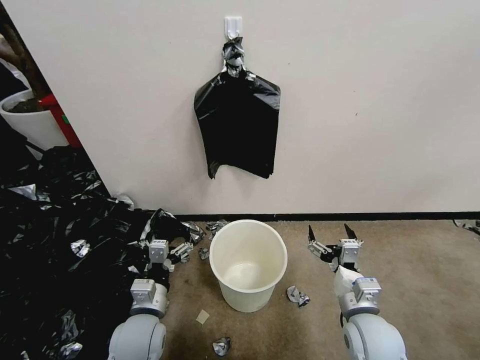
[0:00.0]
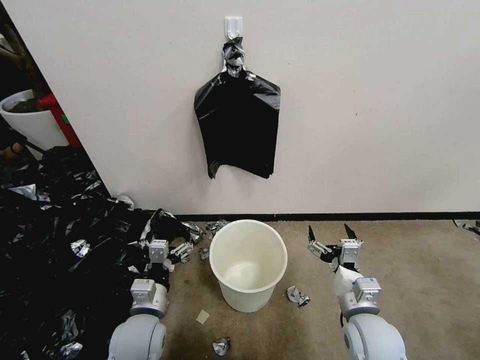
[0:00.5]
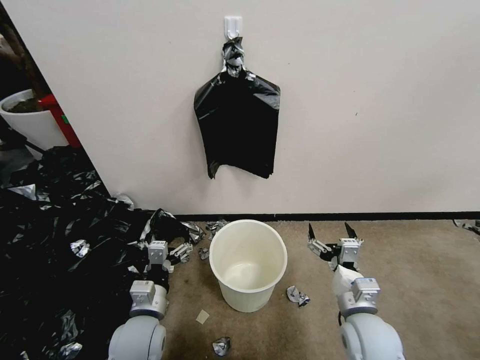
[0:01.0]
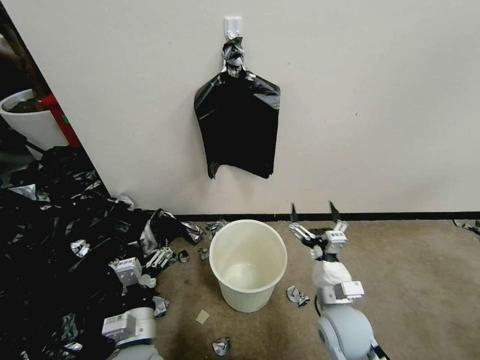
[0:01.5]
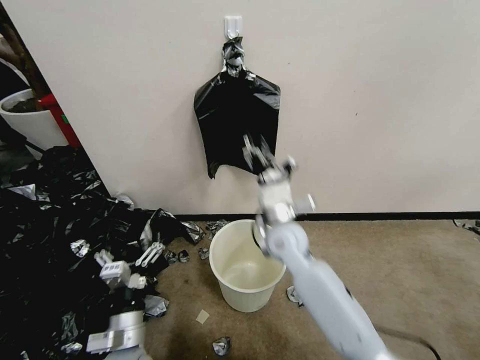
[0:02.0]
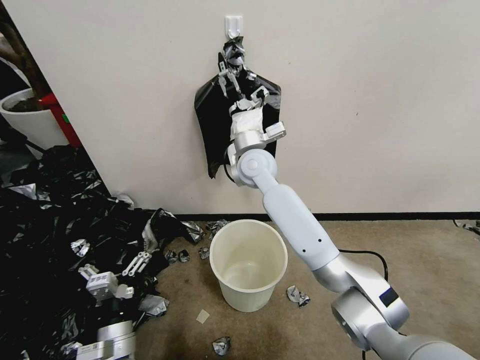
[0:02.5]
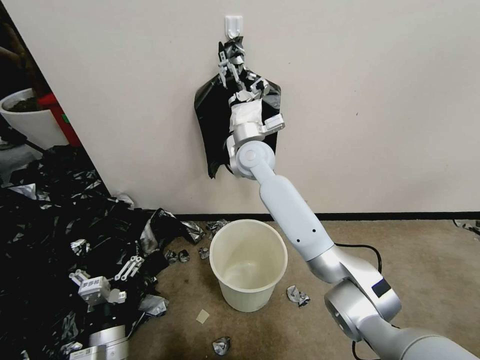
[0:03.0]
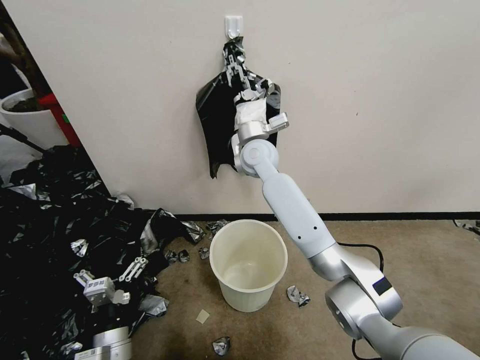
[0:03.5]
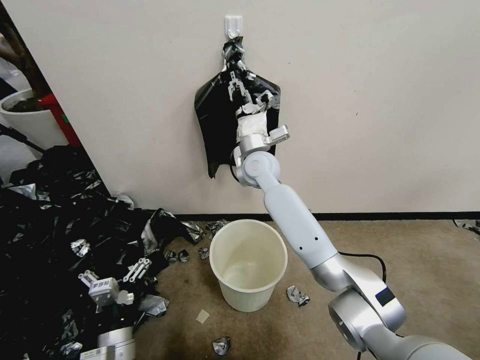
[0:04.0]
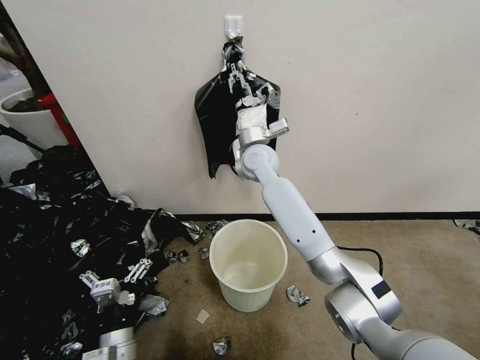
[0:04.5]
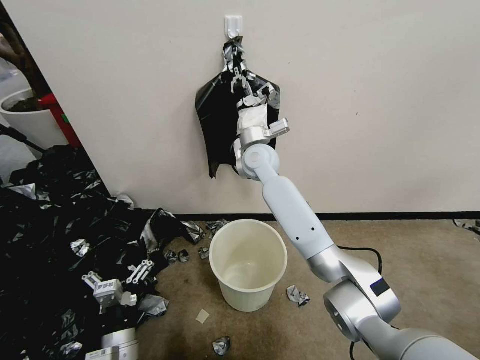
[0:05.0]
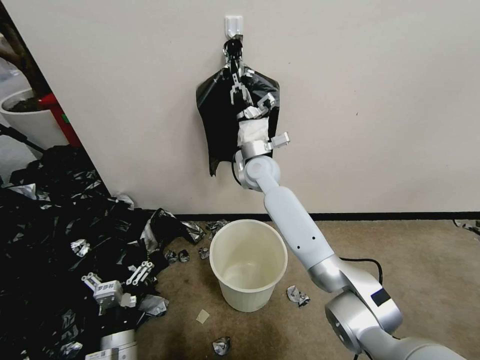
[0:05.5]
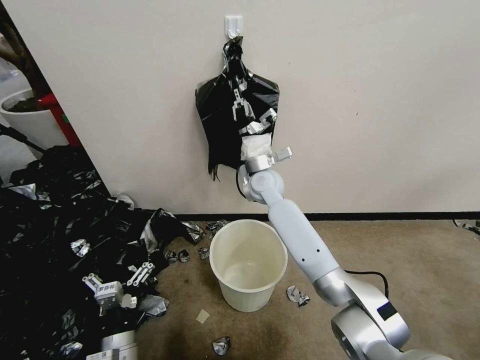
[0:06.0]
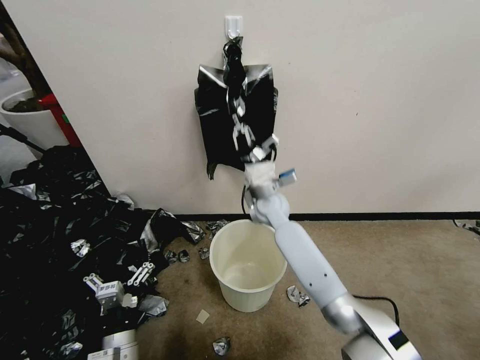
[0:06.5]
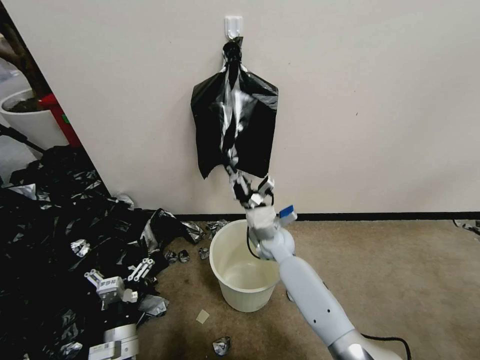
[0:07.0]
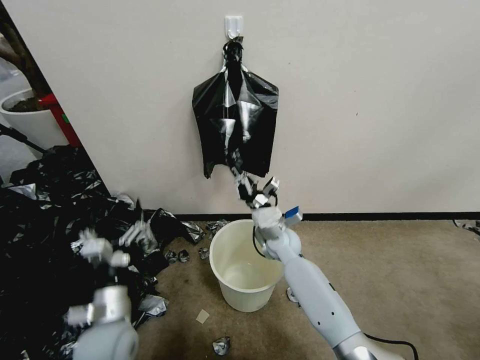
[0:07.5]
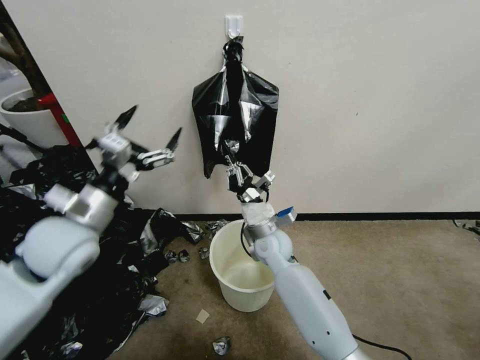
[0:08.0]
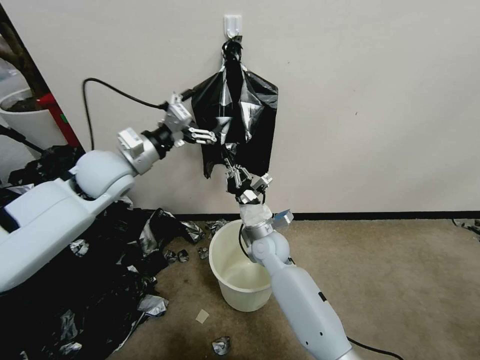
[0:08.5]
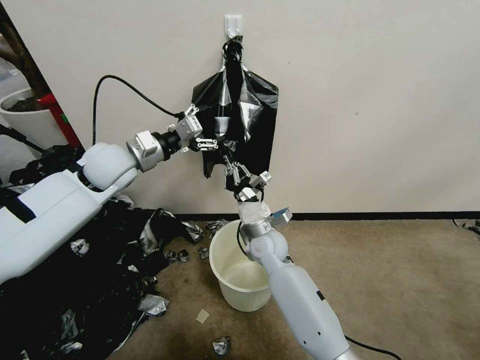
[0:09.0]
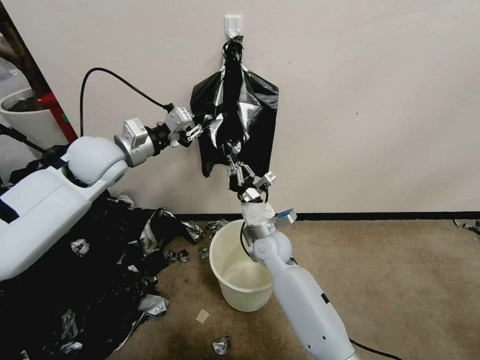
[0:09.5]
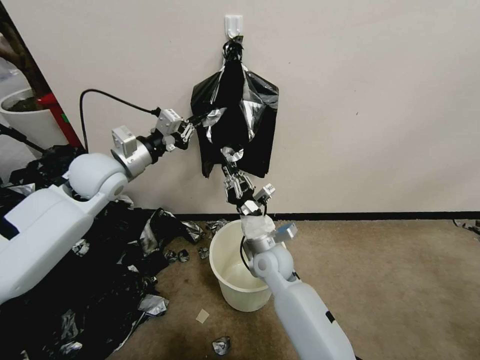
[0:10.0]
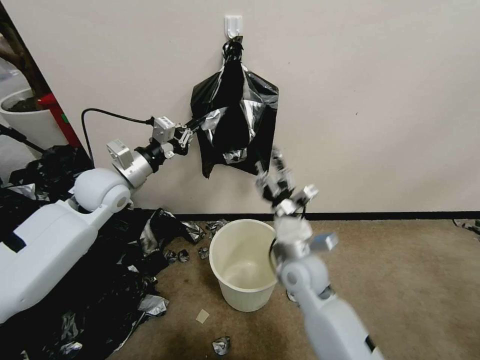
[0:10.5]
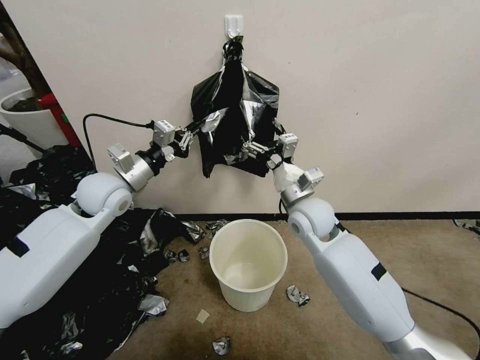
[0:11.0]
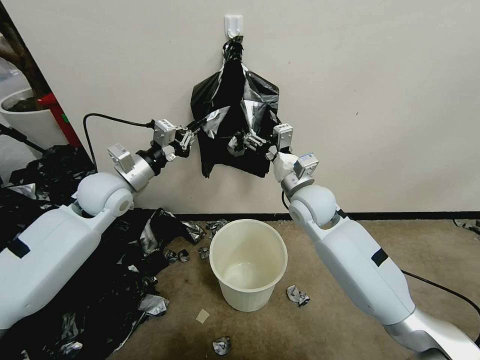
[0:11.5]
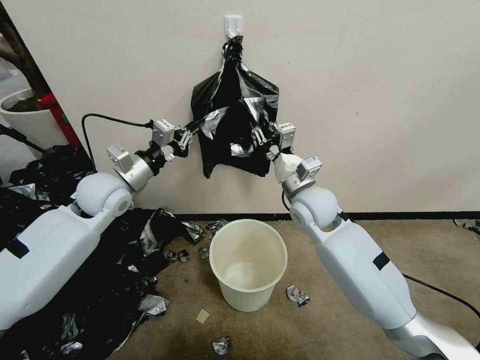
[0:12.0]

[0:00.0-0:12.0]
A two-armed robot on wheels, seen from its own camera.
Task of the whole recording: Place a trash bag onto the trash bin.
0:02.0 to 0:04.0: The right gripper travels forward and upward by approximately 15 cm, and closes up.
0:04.0 to 0:06.0: The right gripper shifts roughly 5 cm downward.
0:06.0 to 0:08.0: The left gripper shifts about 30 cm upward and forward. Meanwhile the right gripper shifts approximately 15 cm backward and downward.
0:08.0 to 0:10.0: The left gripper moves forward, about 15 cm, and closes.
0:10.0 to 0:12.0: The right gripper travels upward, to the right and forward by some 15 cm, and opens, then closes again.

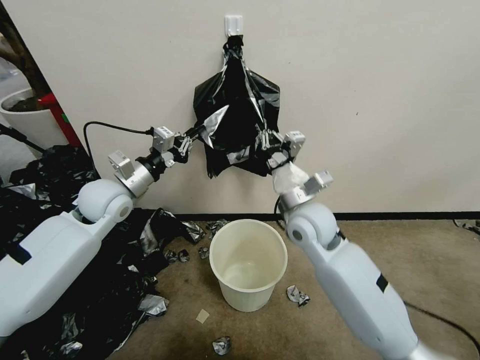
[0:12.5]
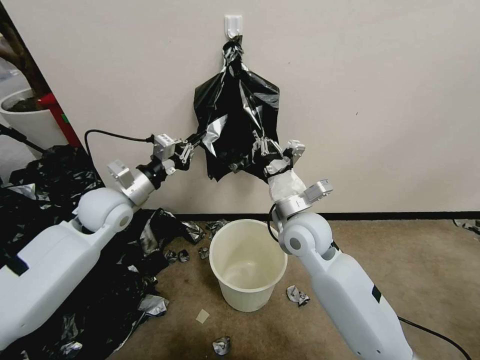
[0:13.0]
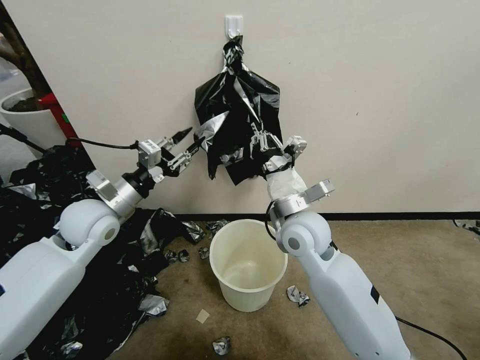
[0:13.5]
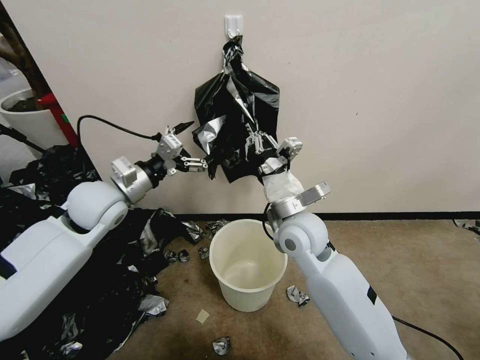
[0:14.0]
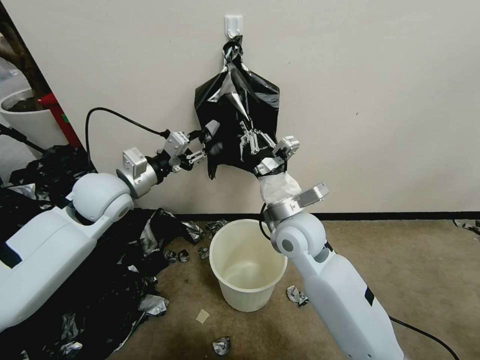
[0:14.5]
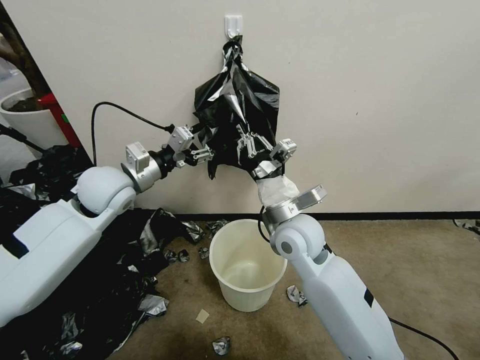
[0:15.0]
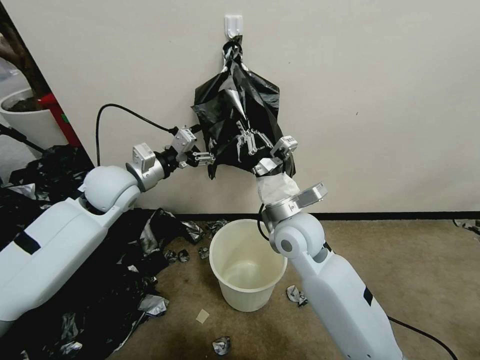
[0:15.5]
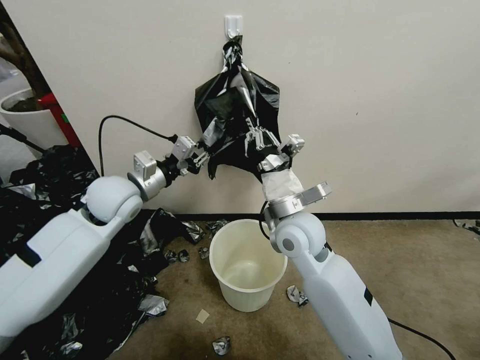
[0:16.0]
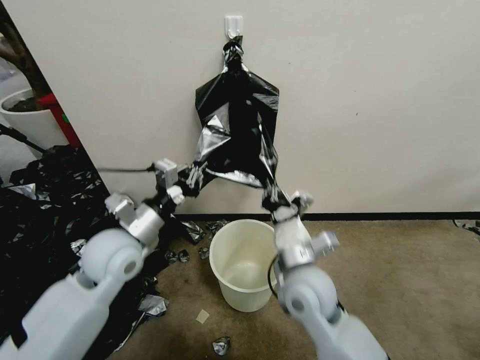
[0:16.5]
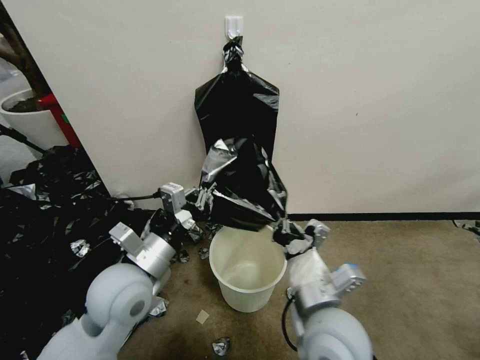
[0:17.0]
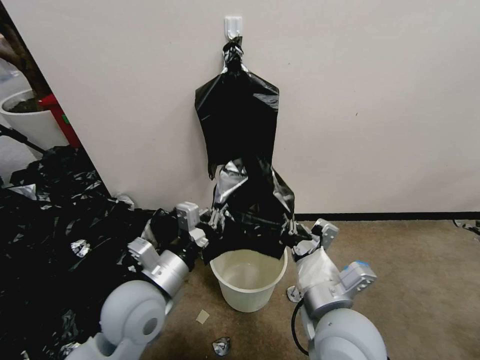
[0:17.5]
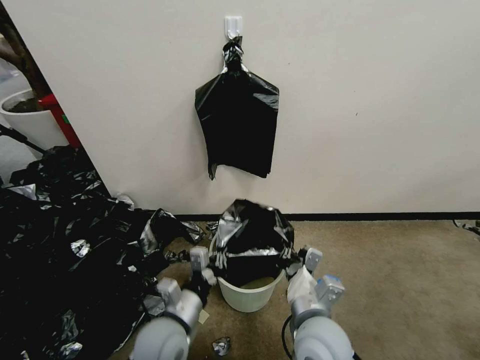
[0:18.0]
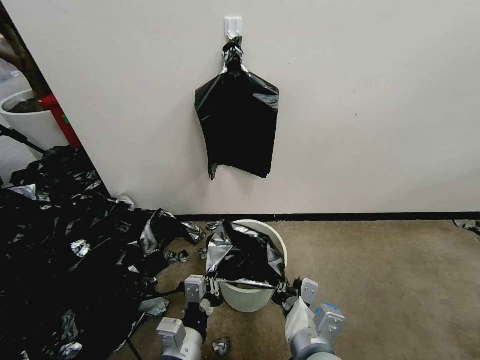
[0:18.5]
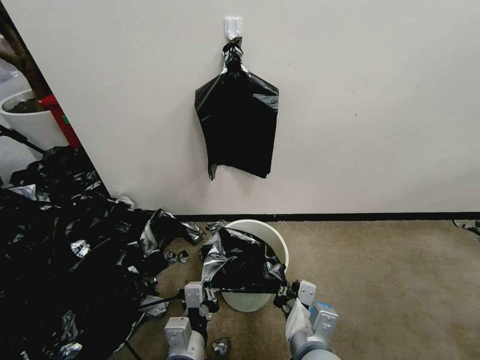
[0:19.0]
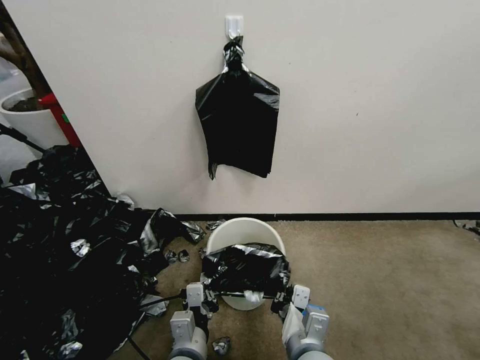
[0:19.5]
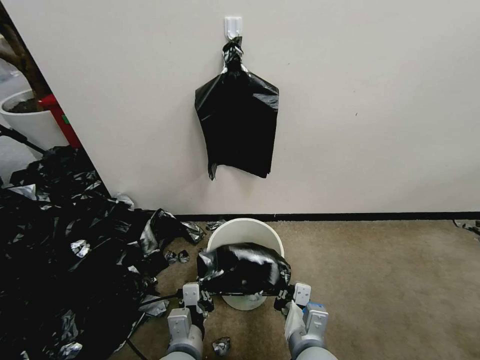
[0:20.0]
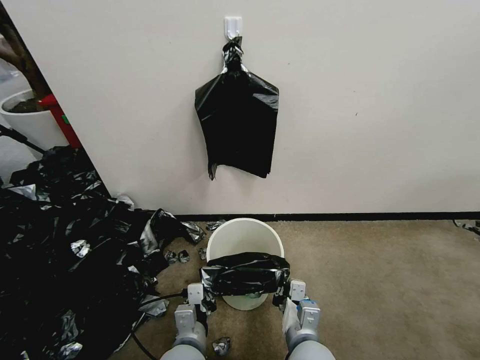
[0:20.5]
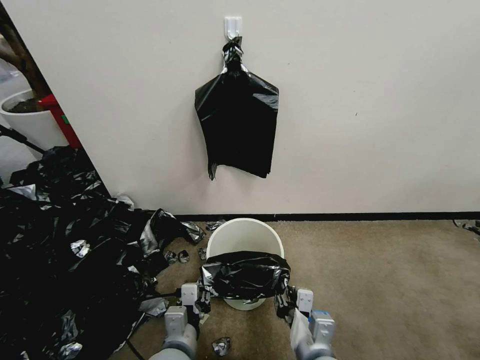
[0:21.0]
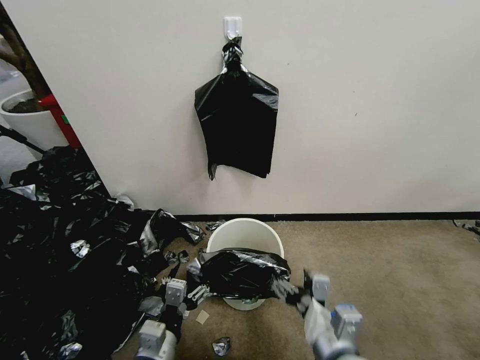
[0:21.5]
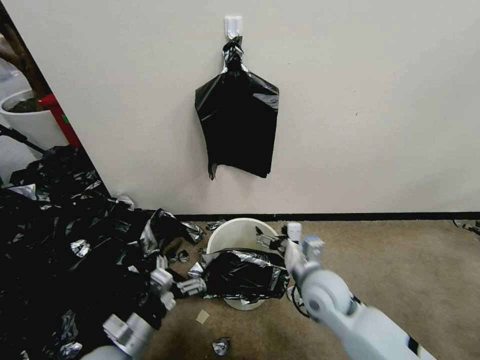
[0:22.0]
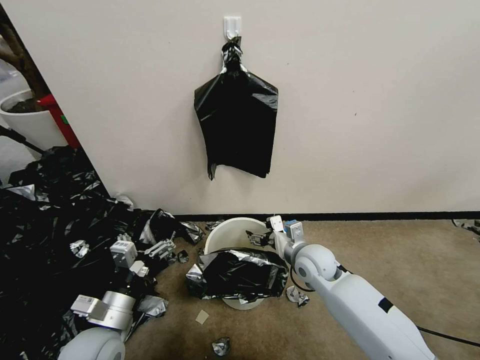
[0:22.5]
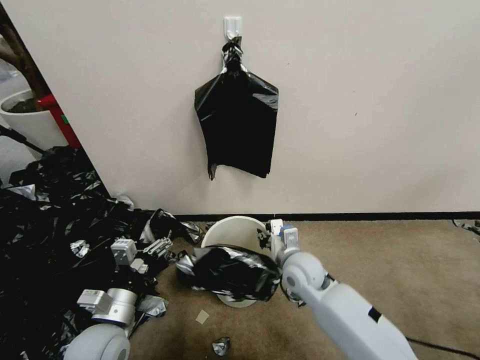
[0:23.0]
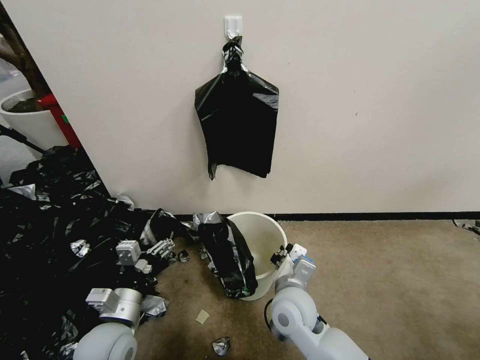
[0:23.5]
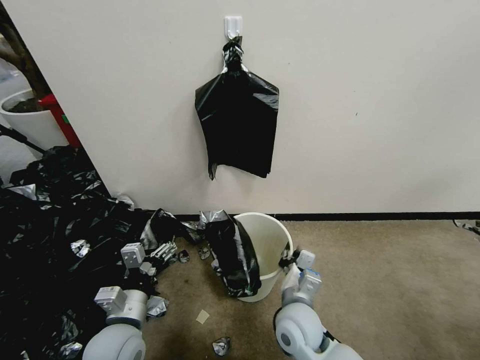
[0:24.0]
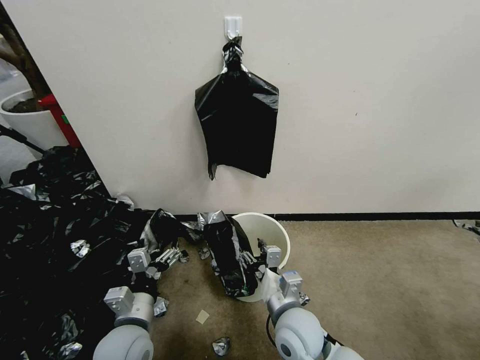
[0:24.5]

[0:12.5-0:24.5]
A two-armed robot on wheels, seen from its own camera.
Task of the whole recording: Place a trash bag onto the trash bin.
0:12.5 to 0:14.5: The left gripper opens up.
0:14.5 to 0:16.5: The grippers both shift backward and downward by roughly 10 cm. The left gripper closes its fingers.
0:16.5 to 0:18.5: The right gripper goes roughly 15 cm backward, while the left gripper goes approximately 25 cm backward, downward and to the right.
0:18.5 to 0:20.5: The right gripper shifts about 10 cm downward, while the left gripper travels downward by about 5 cm.
0:20.5 to 0:22.5: The left gripper travels to the left and upward by about 15 cm, and opens up, while the right gripper goes approximately 20 cm forward, and opens up.
0:22.5 to 0:24.5: The left gripper changes place by some 5 cm, while the right gripper moves backward and to the left, some 15 cm, and closes and opens again.

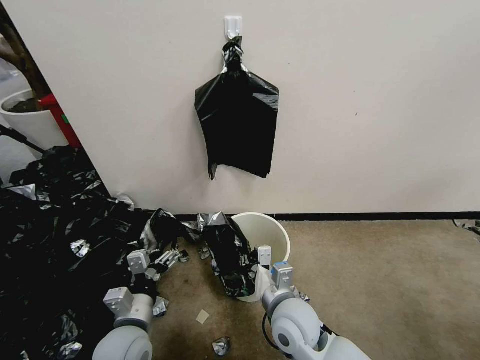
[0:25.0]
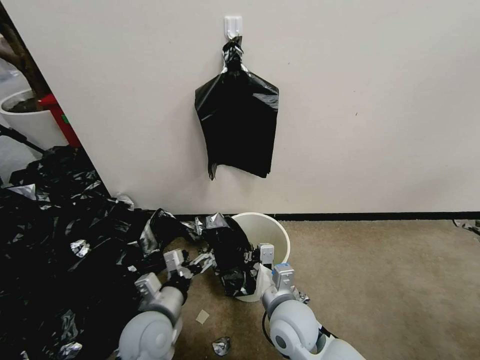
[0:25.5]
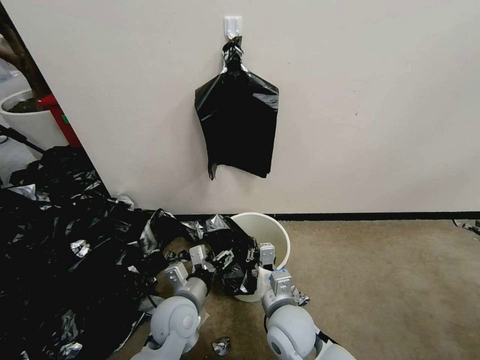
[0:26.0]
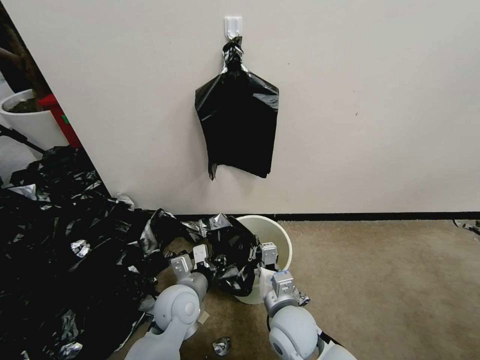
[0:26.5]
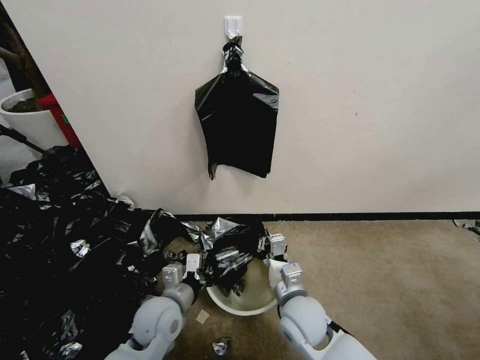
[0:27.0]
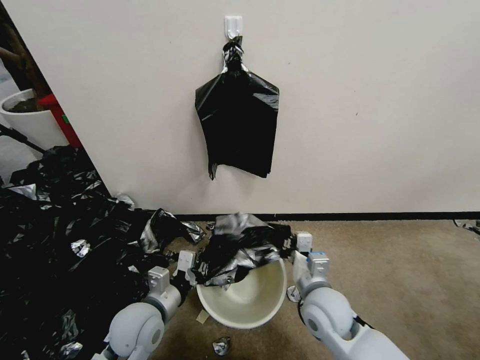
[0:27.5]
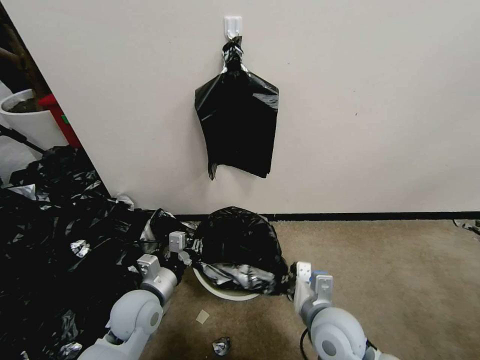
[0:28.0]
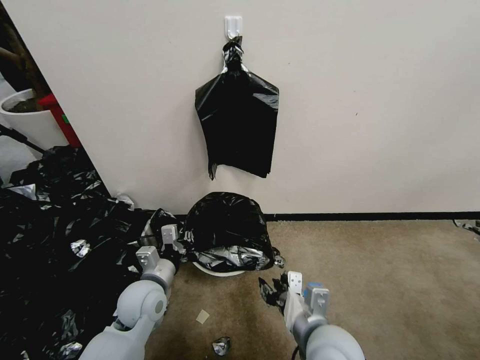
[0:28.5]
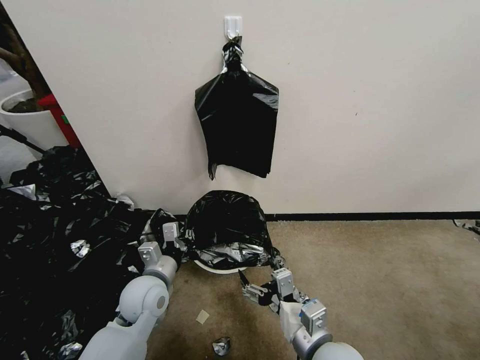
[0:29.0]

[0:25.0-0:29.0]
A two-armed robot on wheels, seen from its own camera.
Task of the whole recording: Place a trash bag onto the trash bin.
0:25.0 to 0:27.0: The left gripper heads forward, covering roughly 5 cm, and closes up.
0:27.0 to 0:29.0: The left gripper moves some 5 cm. Meanwhile the right gripper is displaced backward by roughly 10 cm, and opens up.
